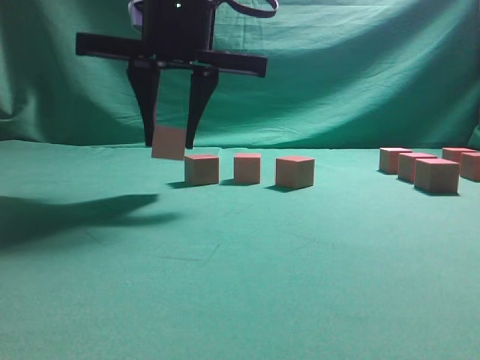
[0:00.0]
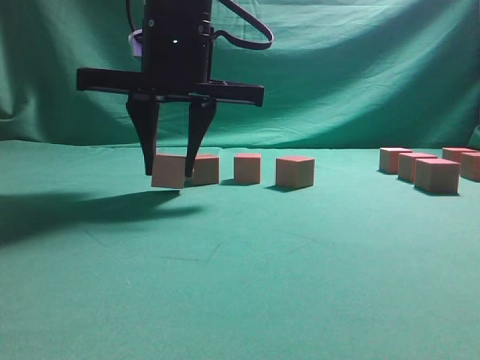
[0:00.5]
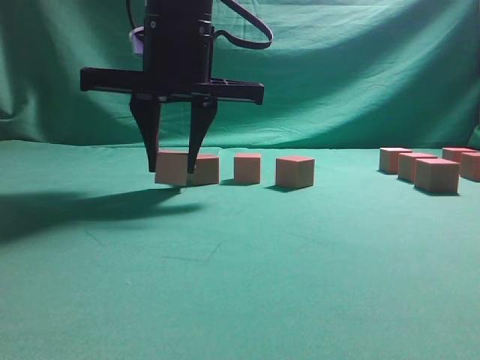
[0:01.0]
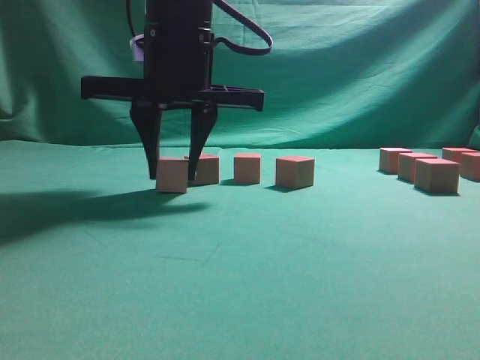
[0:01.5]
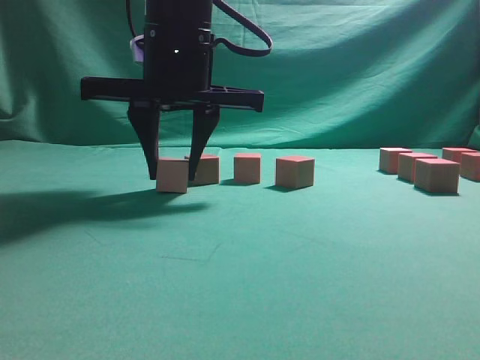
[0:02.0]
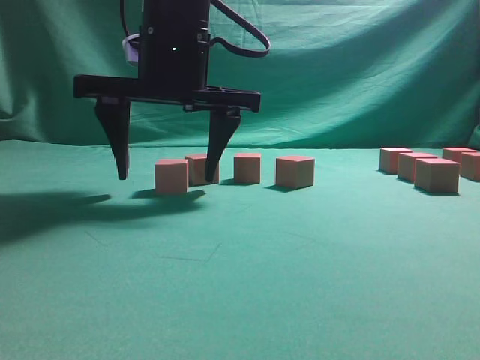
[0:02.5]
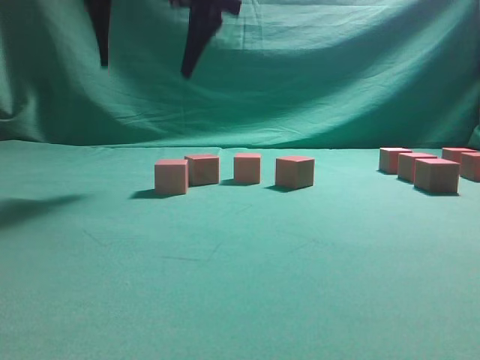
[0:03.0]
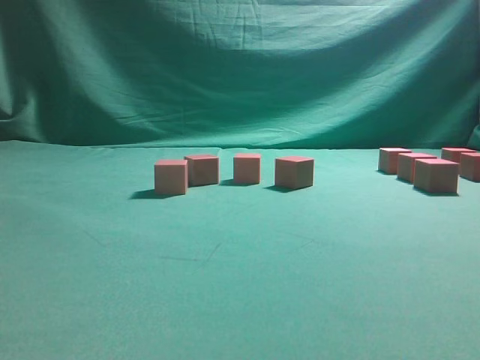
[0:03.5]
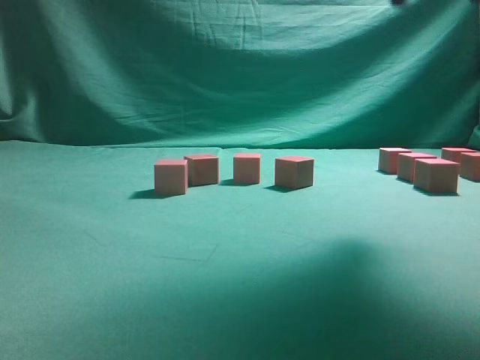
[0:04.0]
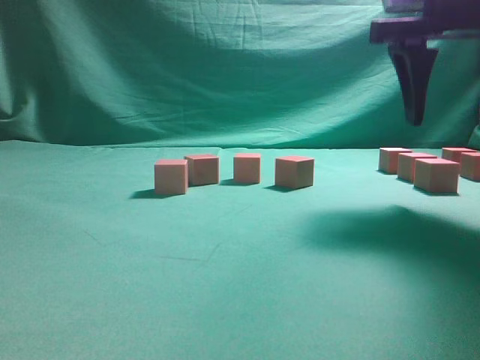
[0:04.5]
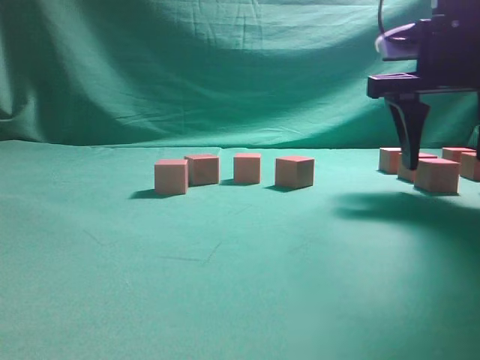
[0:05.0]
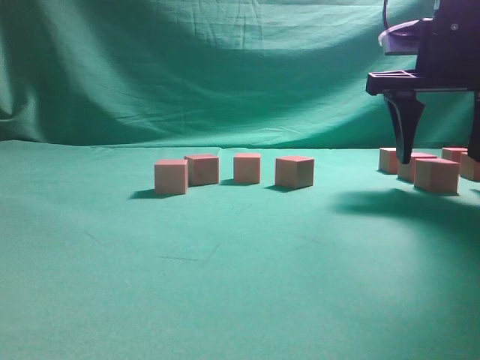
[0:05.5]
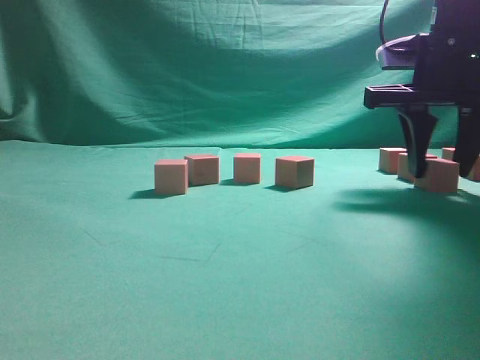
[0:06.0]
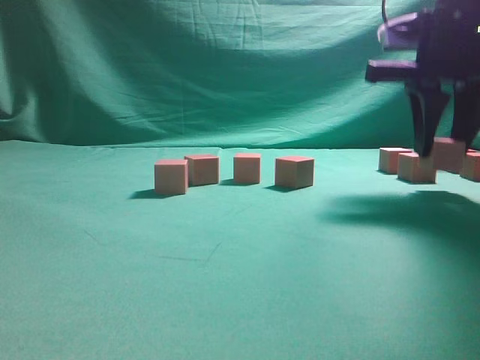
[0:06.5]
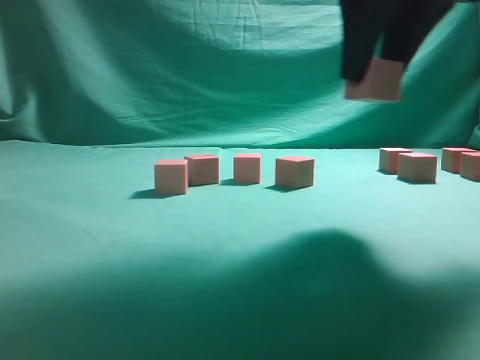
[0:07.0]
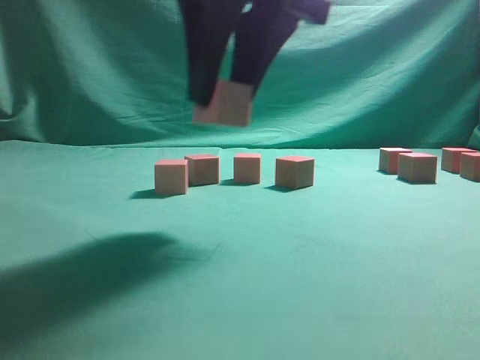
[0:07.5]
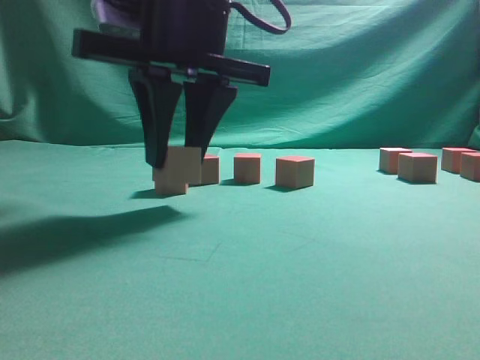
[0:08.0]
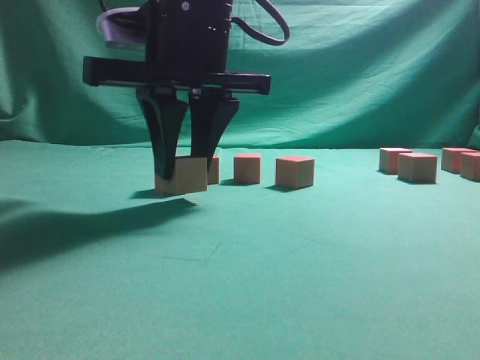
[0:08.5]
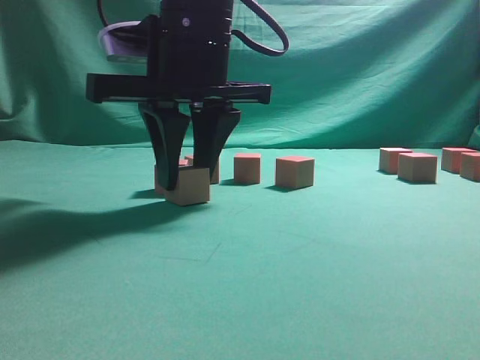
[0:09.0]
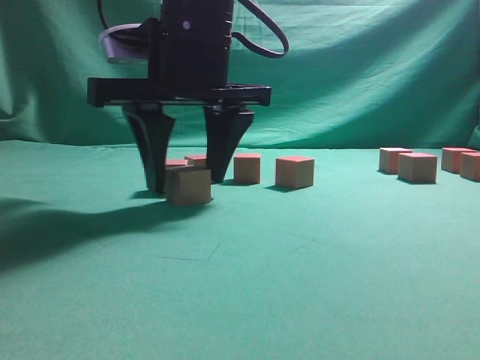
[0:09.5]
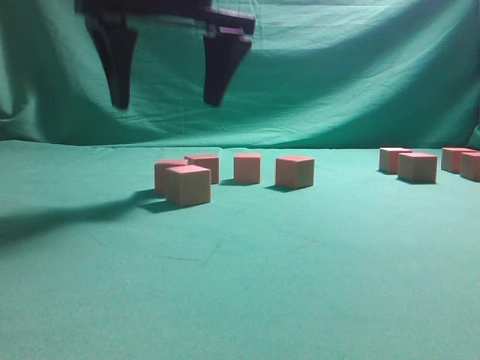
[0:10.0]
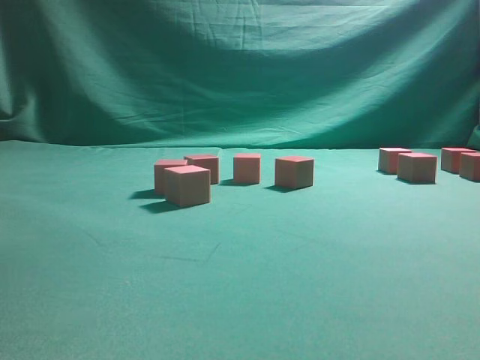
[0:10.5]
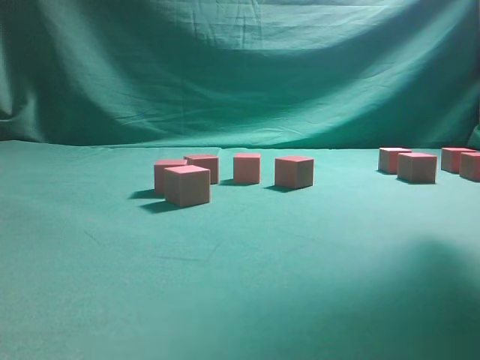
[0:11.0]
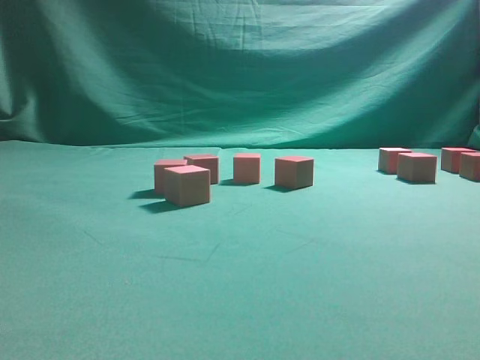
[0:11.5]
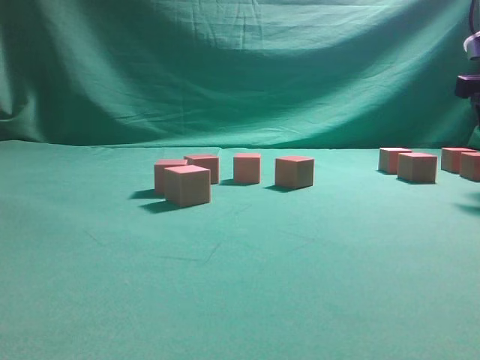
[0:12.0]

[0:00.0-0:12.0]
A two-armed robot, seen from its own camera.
Task of the whole recording: pick up the multiple cubes in two columns one by one and place them in another position on the table.
Step, 0:00.0 to 0:02.5: Place the block at the correct position to assemble the letter S.
Step, 0:03.5 to 0:06.5: Pick up the block on the table.
Step, 0:07.0 to 0:10.0: Place the block at the correct position to assemble the letter S.
0:00.0 to 0:02.0: The grippers move only a little.
0:02.0 to 0:04.0: The right gripper travels to the right and upward by approximately 25 cm, and opens.
0:04.0 to 0:06.0: The right gripper shifts roughly 15 cm downward.
0:06.0 to 0:08.0: The right gripper moves to the left, some 25 cm.
0:08.0 to 0:10.0: The right gripper shifts by some 5 cm, and opens.
0:10.0 to 0:12.0: The right gripper goes approximately 35 cm to the right.

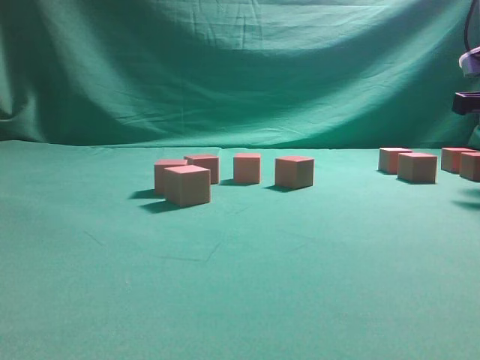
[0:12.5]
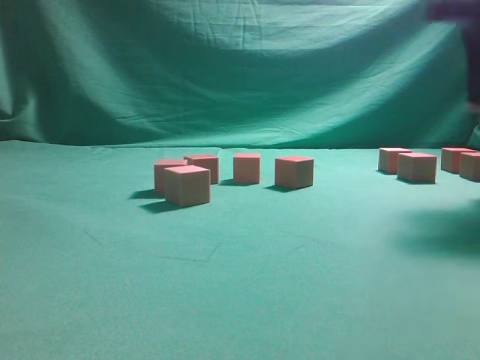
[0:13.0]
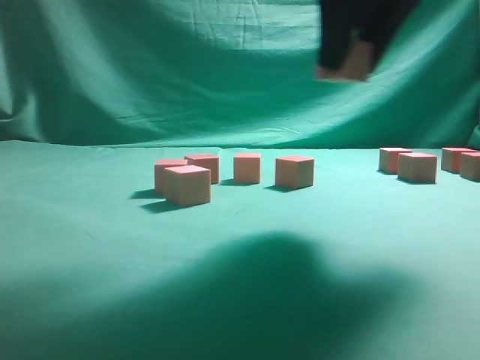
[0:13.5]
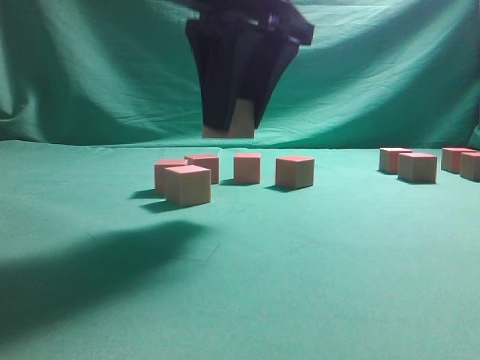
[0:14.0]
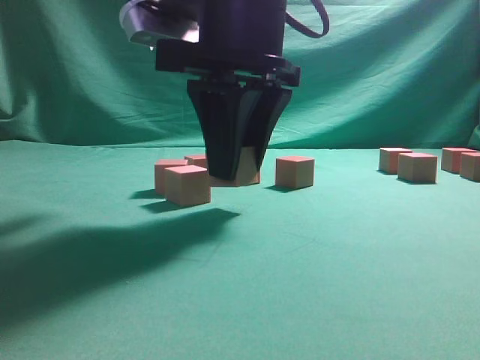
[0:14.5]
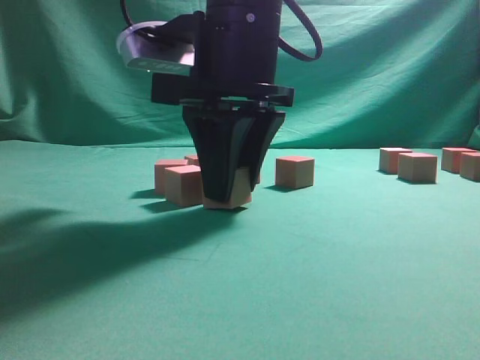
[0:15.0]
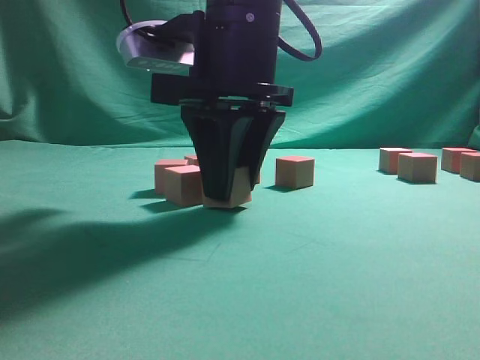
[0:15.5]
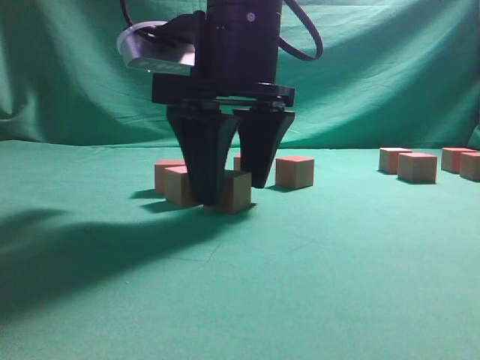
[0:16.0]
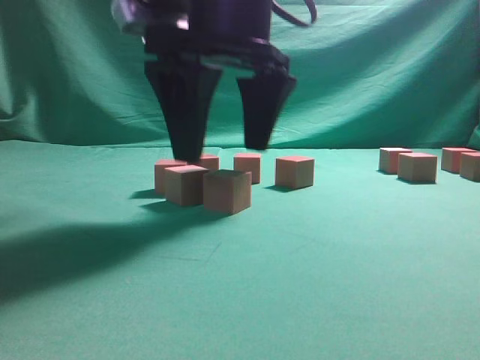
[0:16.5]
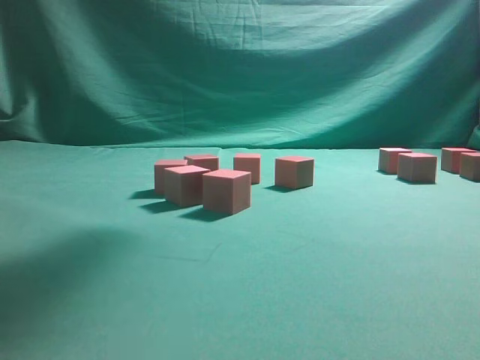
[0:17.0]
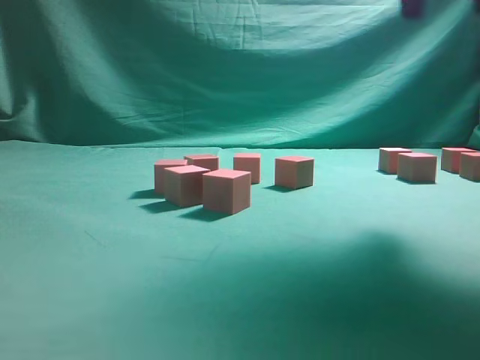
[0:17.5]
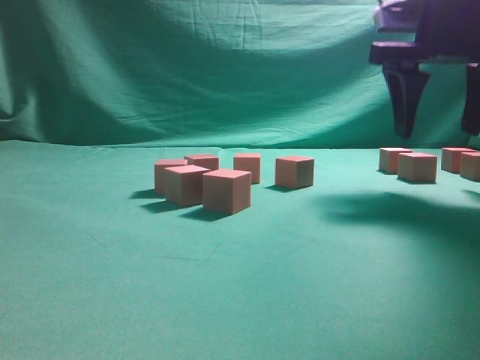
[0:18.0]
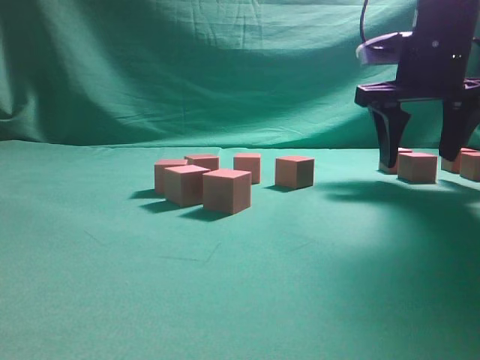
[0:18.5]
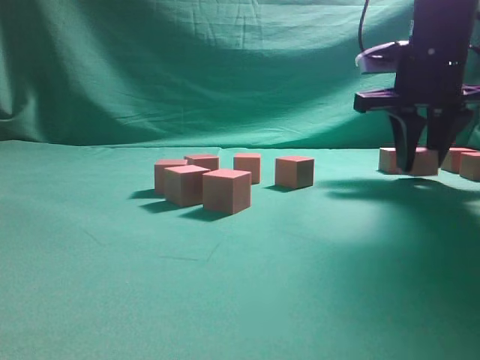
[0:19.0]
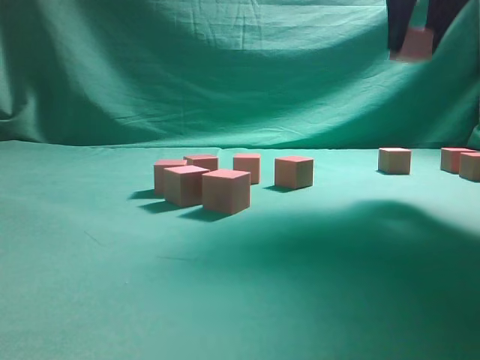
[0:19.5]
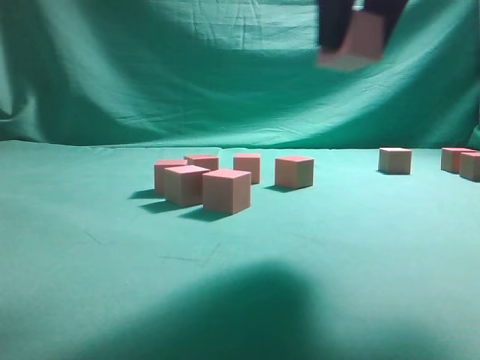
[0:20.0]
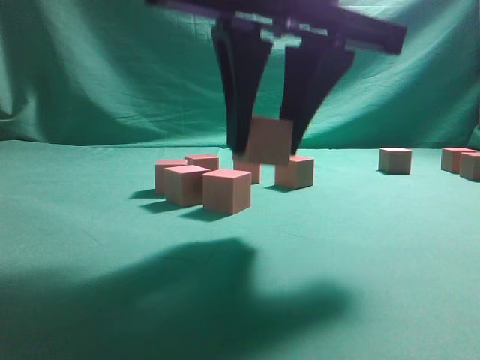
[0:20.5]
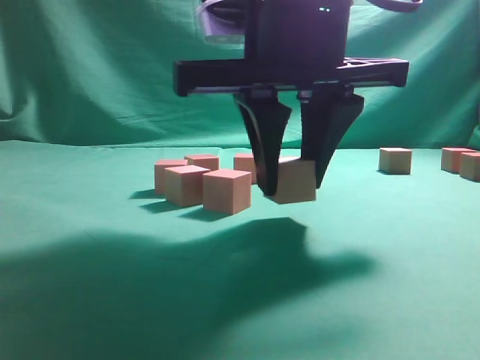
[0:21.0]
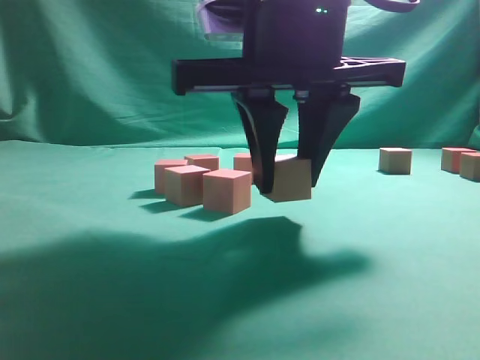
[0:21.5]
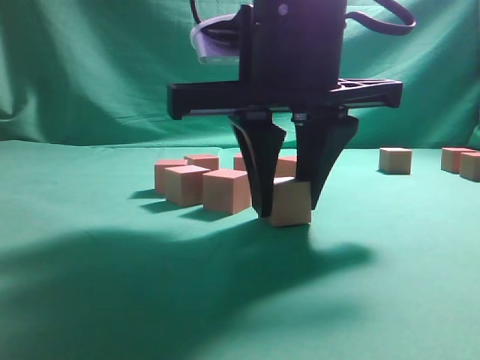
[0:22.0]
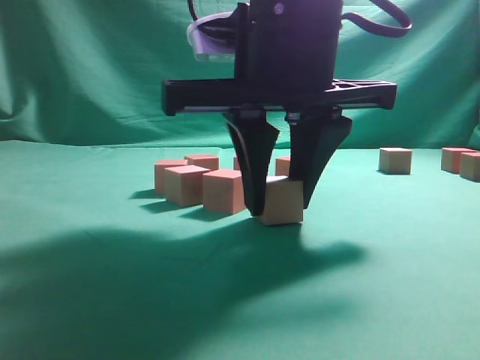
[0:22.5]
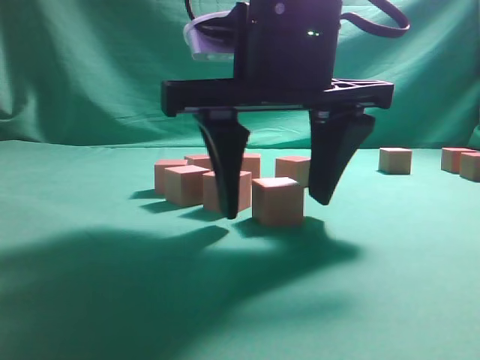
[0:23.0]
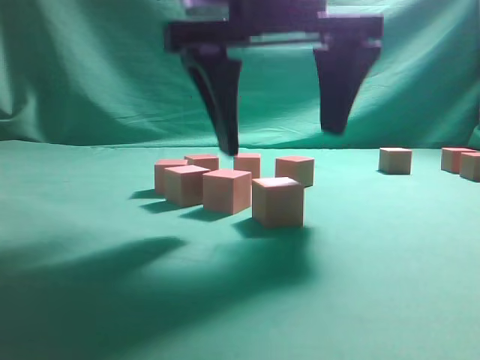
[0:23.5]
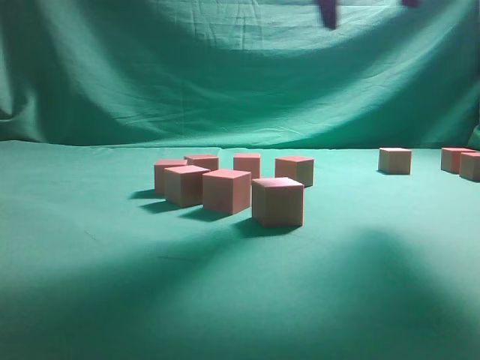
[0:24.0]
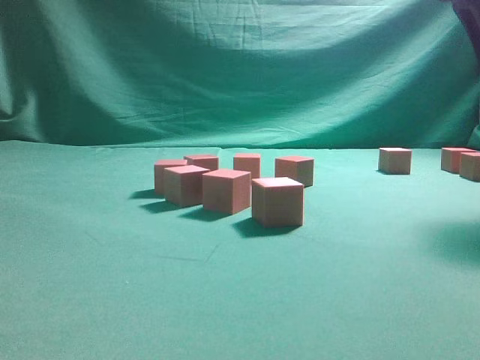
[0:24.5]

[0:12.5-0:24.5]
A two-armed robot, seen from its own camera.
Task of the whole recording: pick up the multiple cubes in two columns one by one and place them in another position on the table.
Step, 0:13.0 to 0:16.5: Place the block at the correct position to assemble the letter S.
Step, 0:17.0 to 0:19.0: Pick up the block on the table.
Step, 0:19.5 to 0:23.5: Place the block at the correct position to assemble the letter S.
0:12.5 to 0:14.5: The right gripper heads to the left, covering some 30 cm.
0:14.5 to 0:16.5: The right gripper opens its fingers.
0:16.5 to 0:18.5: The right gripper heads to the right and forward, covering roughly 25 cm.
0:18.5 to 0:20.5: The right gripper is displaced backward and to the left by approximately 25 cm, and closes.
0:20.5 to 0:22.5: The right gripper shifts by roughly 5 cm.
0:22.5 to 0:24.5: The right gripper travels to the right, upward and forward by some 25 cm, and opens.

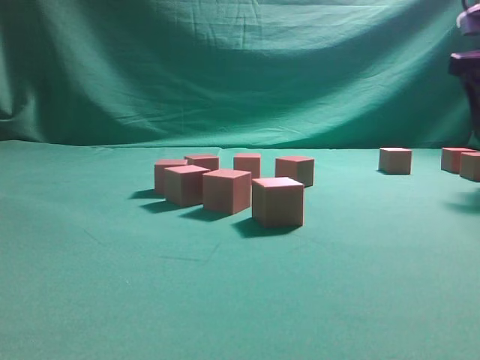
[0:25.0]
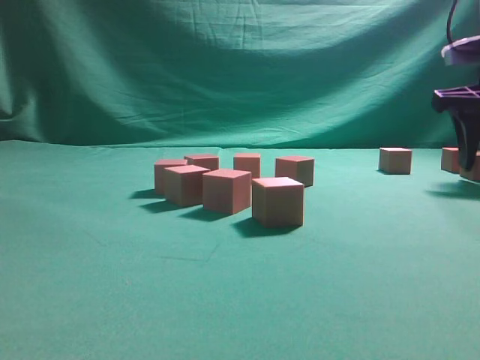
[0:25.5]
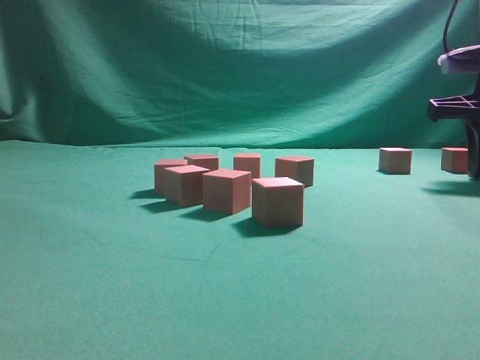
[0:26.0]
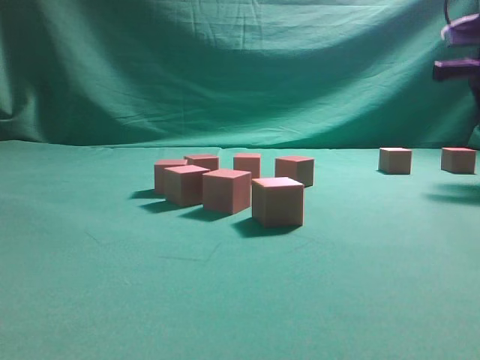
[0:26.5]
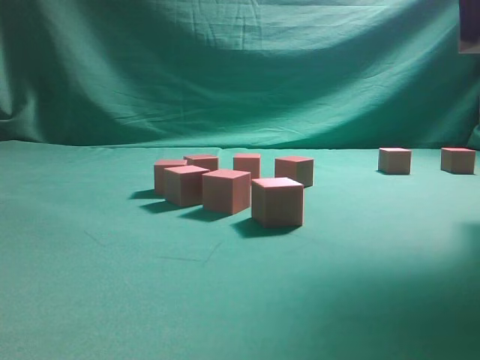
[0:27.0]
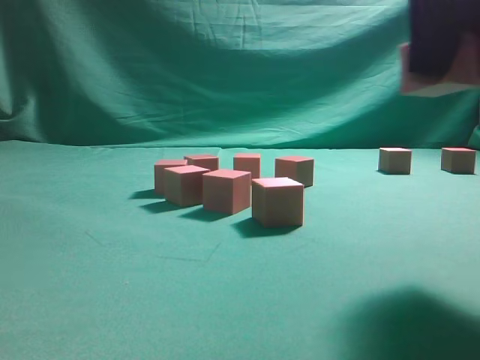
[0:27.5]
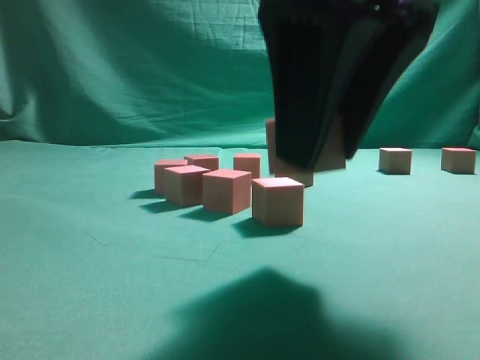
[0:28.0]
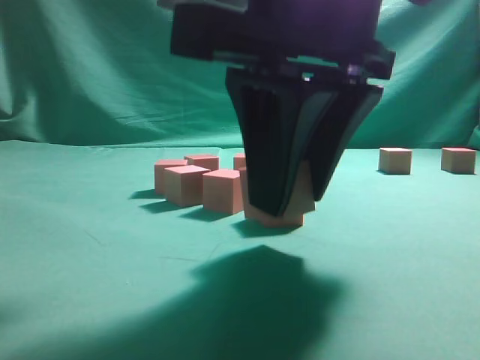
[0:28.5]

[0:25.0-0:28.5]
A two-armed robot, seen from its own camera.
Task of the whole recording: pick up the multiple cubes in two columns one by one and place them in another position on the table.
Step, 0:25.0 to 0:26.5: Pick up the block on the table.
0:25.0 to 0:27.0: The right gripper moves upward, to the left and backward, approximately 10 cm, and closes its fingers.
0:27.0 to 0:28.5: The right gripper heads to the left, backward and downward, covering approximately 25 cm.
